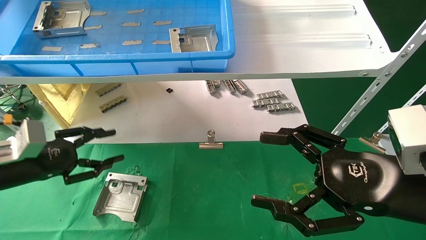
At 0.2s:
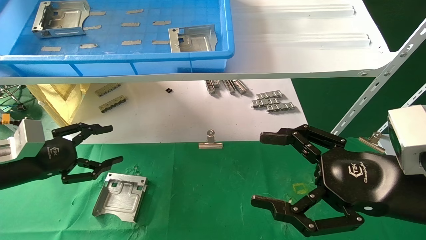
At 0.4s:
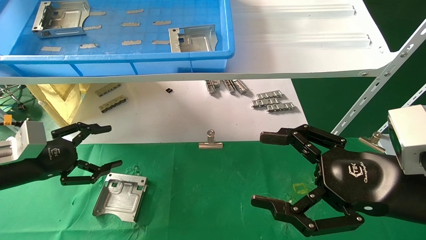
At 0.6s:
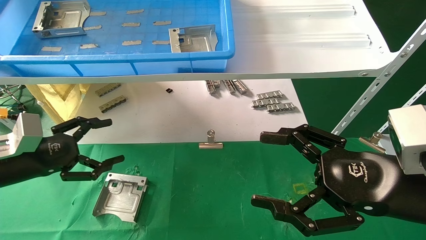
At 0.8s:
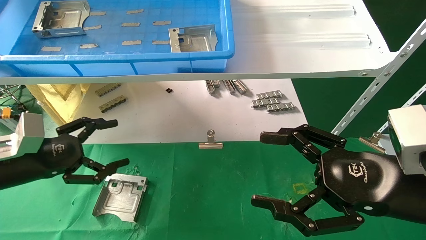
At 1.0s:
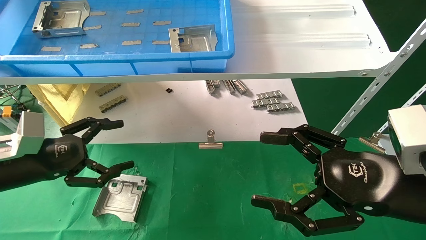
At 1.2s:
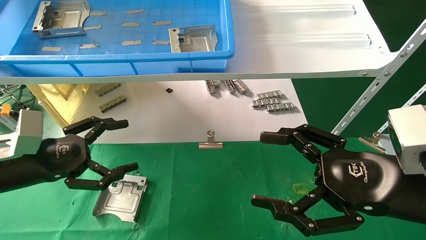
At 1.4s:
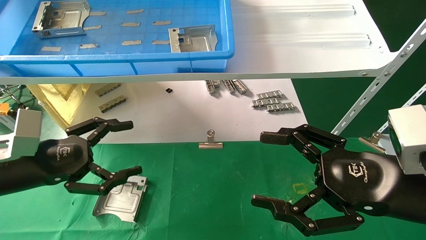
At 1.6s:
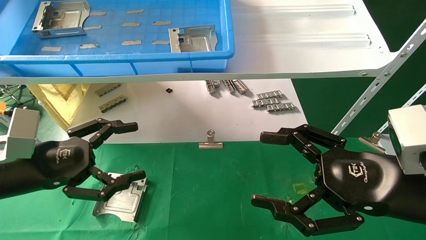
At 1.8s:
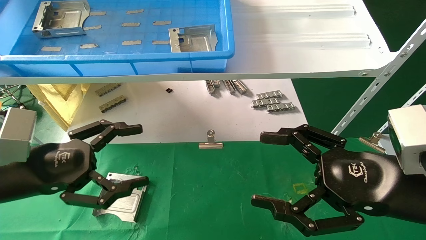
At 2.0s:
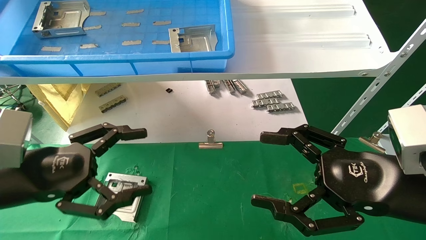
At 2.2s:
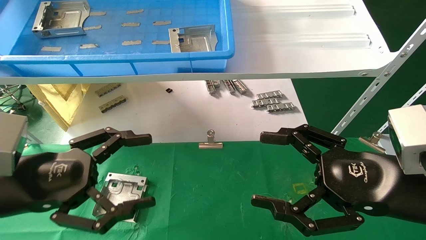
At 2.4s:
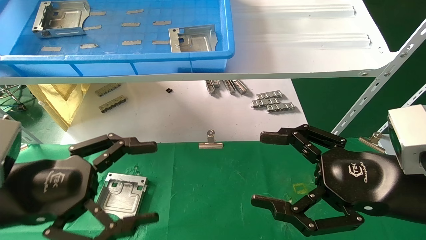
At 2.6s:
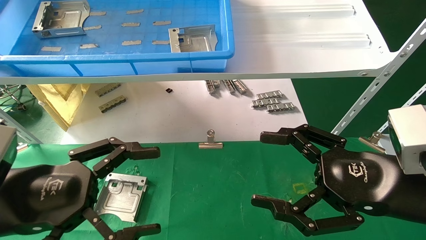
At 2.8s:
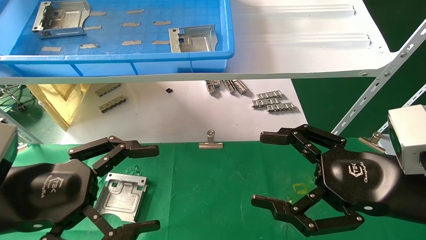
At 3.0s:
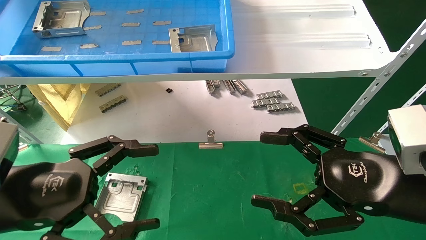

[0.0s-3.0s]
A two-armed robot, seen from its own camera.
Task of the whole recording: use the mechanical arm to pick up the parts and place them on the table.
0.0s to 1.6s: The left gripper moves to the right and backward, approximately 10 cm, and opens up.
1.6s to 3.0s: The left gripper goes approximately 5 cm backward.
